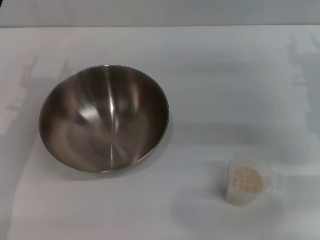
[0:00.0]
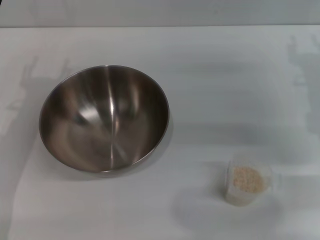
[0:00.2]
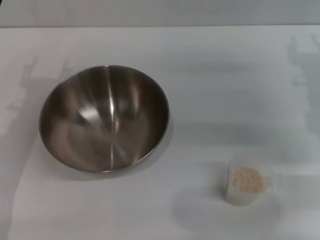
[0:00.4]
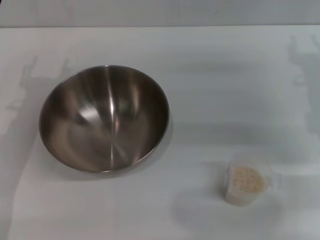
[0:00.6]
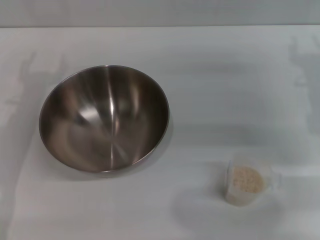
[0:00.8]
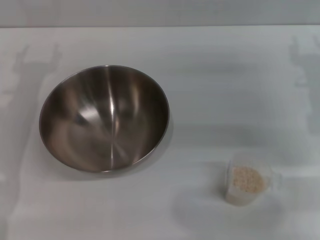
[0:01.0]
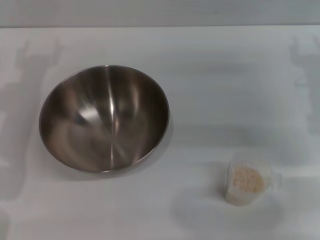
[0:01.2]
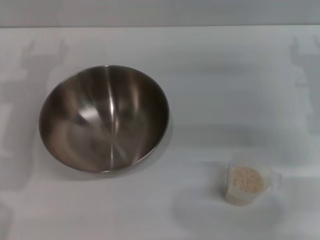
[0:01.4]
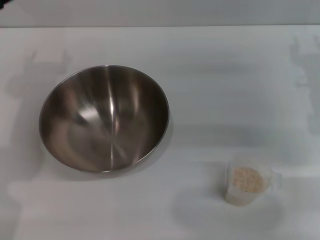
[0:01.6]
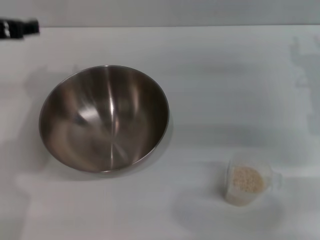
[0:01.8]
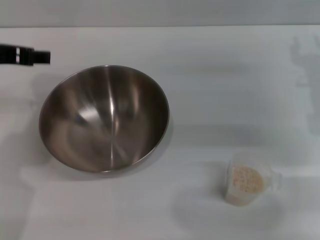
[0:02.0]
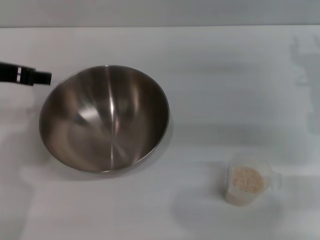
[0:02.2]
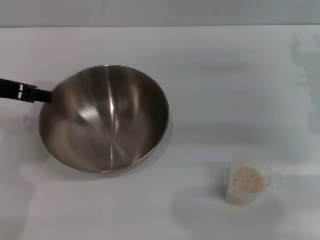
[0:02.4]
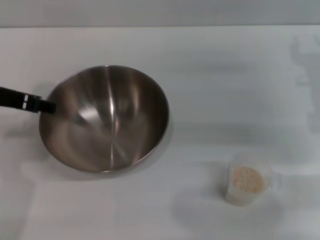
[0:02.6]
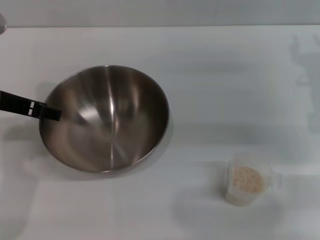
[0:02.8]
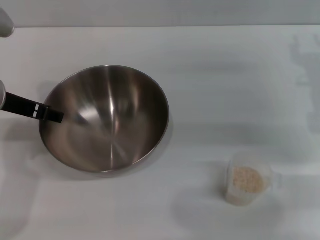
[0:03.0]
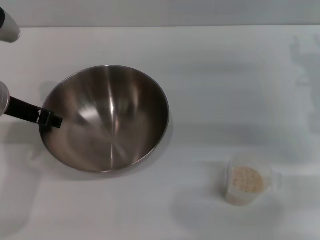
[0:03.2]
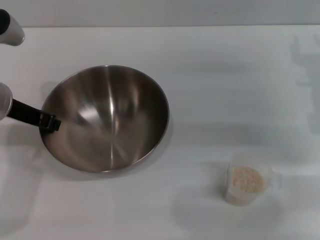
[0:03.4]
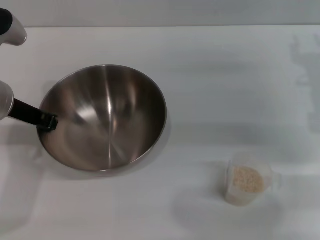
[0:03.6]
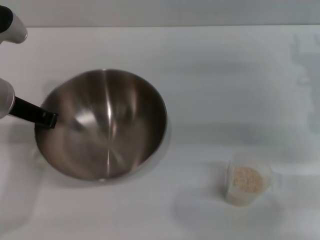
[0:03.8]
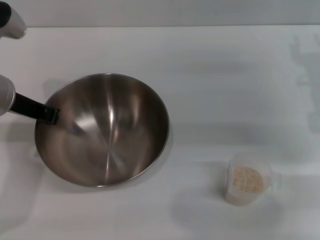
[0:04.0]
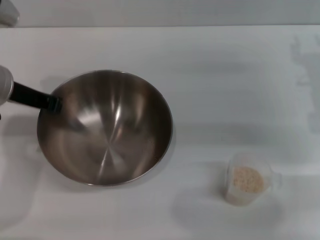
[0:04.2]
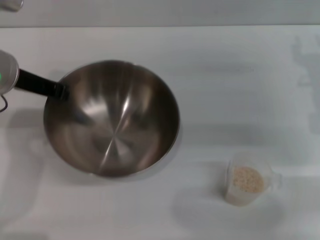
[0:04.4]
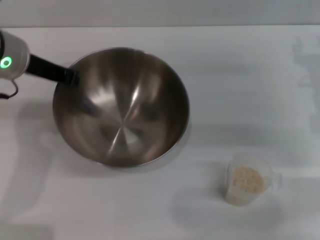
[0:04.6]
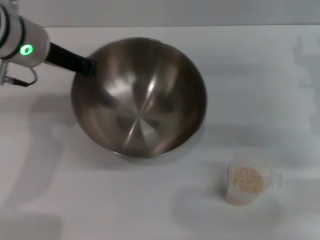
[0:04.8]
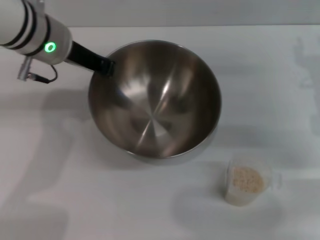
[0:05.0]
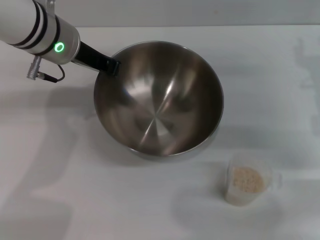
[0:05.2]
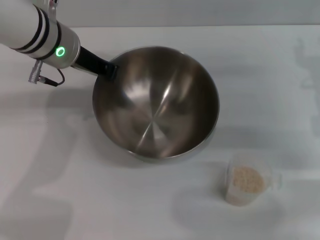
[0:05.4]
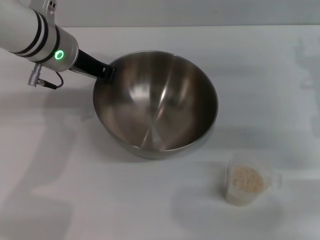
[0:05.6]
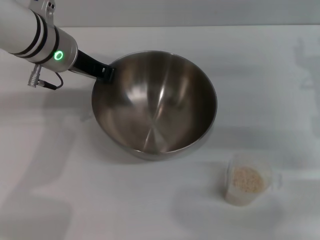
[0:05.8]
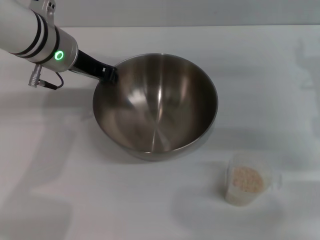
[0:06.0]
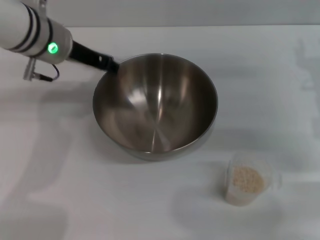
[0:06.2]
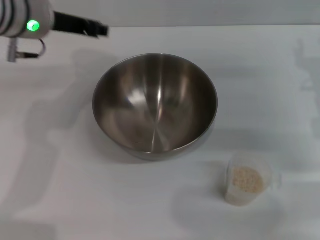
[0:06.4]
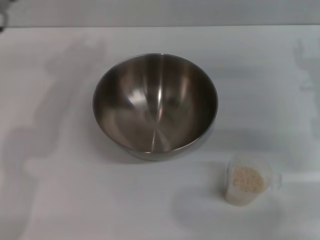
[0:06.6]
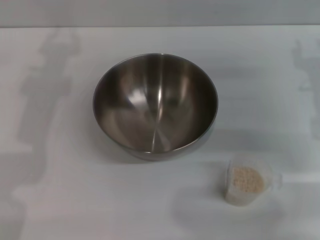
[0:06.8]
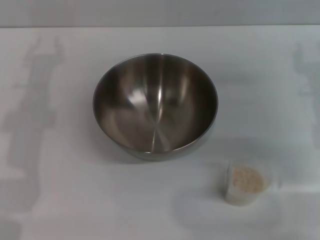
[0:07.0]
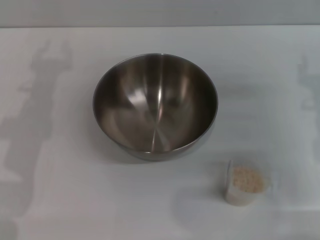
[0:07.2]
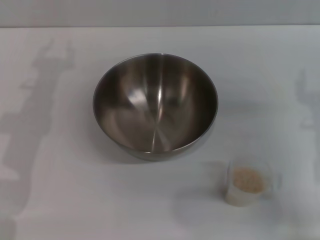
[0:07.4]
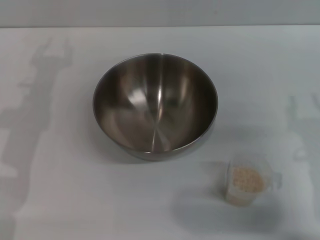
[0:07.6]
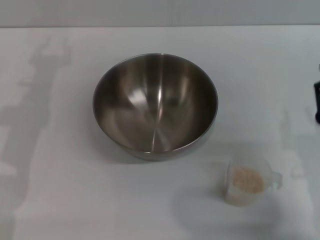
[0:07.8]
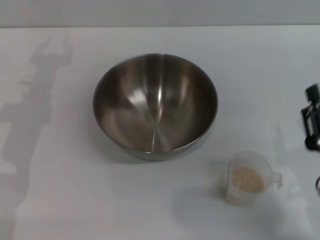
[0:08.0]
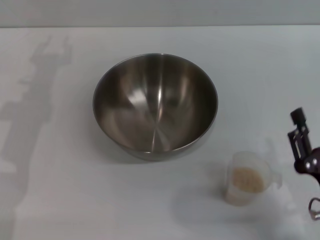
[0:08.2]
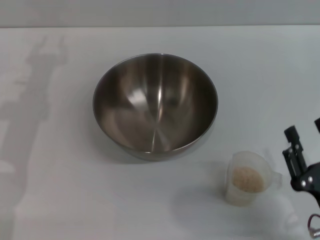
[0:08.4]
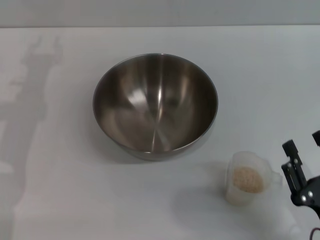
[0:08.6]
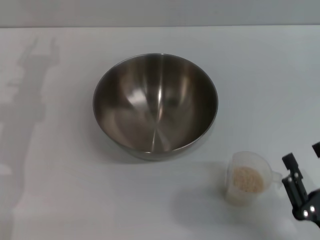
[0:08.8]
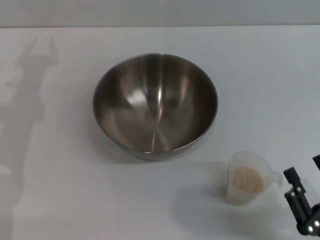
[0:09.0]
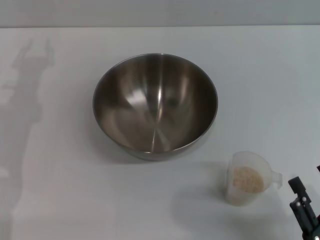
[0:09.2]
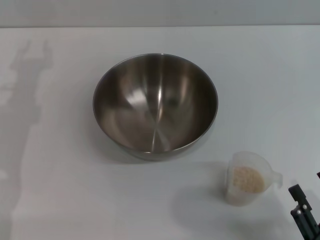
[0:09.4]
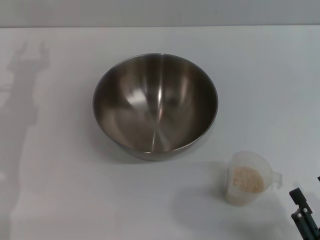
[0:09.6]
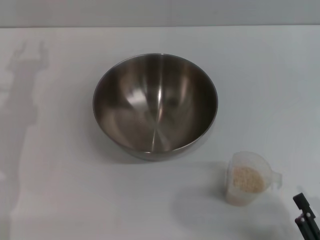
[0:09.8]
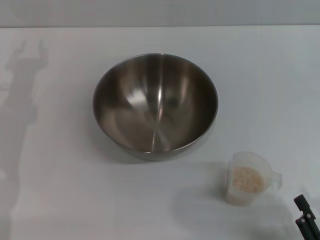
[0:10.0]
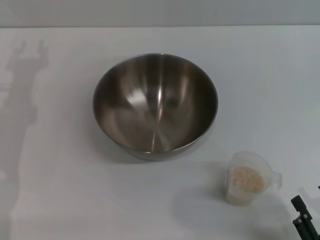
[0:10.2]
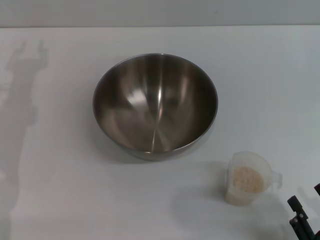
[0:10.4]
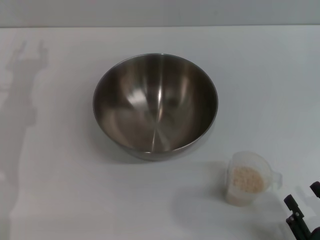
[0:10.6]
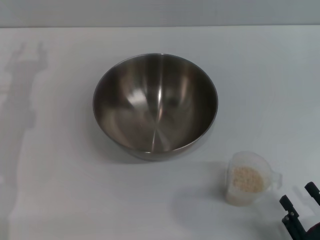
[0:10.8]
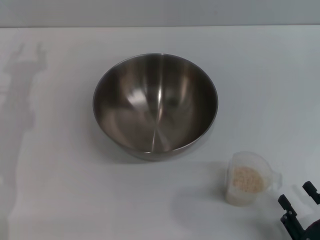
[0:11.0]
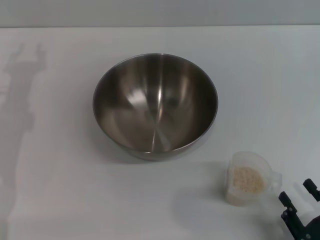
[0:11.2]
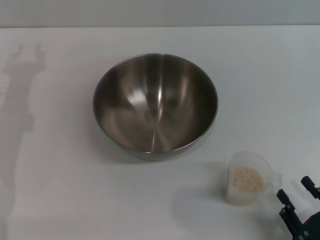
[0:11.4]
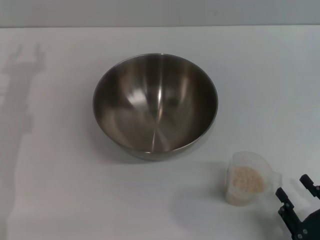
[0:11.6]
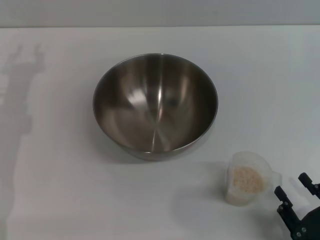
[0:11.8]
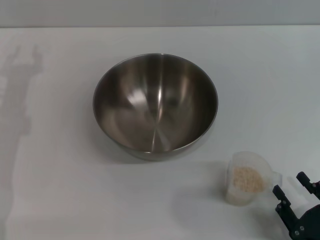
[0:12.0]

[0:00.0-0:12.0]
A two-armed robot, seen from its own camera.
Task of the whole recording: Place the bowl in the middle of the table with one hand and pour the rice from the grain cup into it with the other hand.
Step, 0:00.0 to 0:04.6: Pick up the bowl with the left gripper.
Step, 0:04.8 to 0:06.4: Place the bowl in the center of view with the left gripper.
0:01.6 to 0:03.0: The left gripper shifts by approximately 5 cm.
0:03.0 to 0:04.4: The left gripper closes.
0:04.4 to 0:06.0: The left gripper shifts approximately 10 cm to the right and forward.
0:06.0 to 0:07.6: The right gripper is displaced backward and downward by about 15 cm. The left gripper heads to the left and backward, covering approximately 10 cm, and opens up.
0:07.6 to 0:09.0: The right gripper moves backward, about 15 cm.
0:09.0 to 0:12.0: The grippers make only small movements.

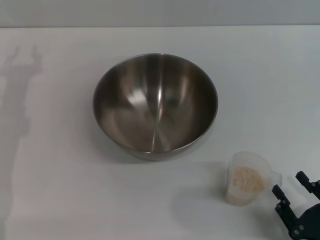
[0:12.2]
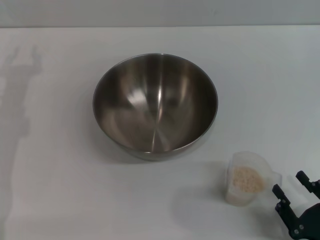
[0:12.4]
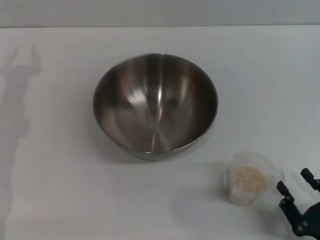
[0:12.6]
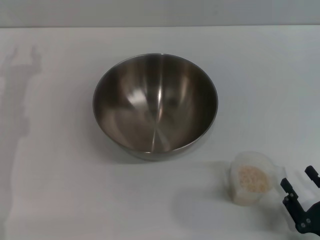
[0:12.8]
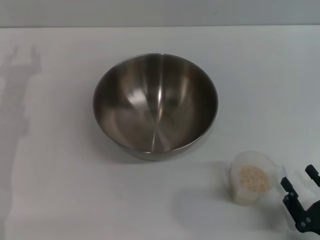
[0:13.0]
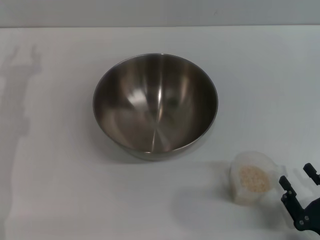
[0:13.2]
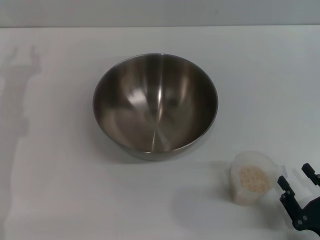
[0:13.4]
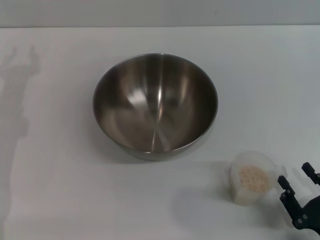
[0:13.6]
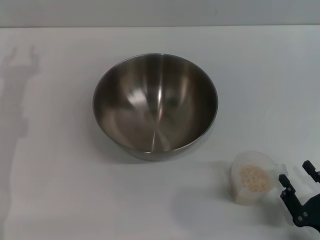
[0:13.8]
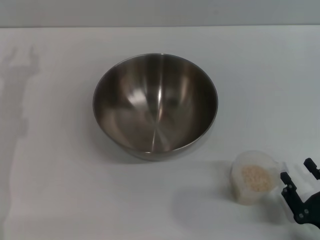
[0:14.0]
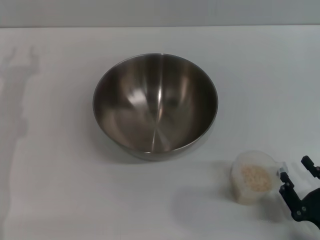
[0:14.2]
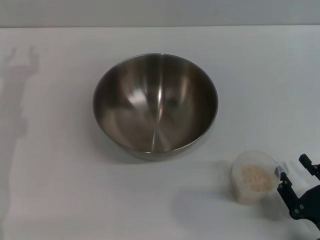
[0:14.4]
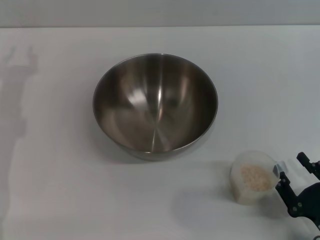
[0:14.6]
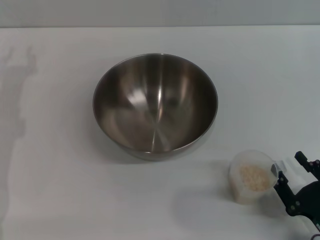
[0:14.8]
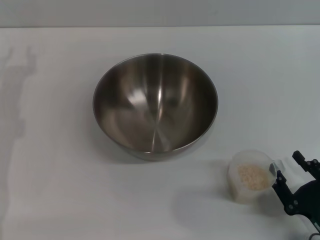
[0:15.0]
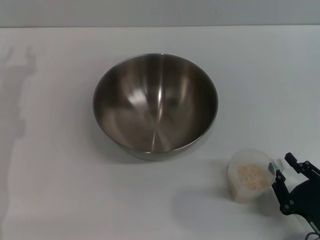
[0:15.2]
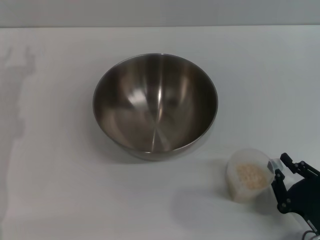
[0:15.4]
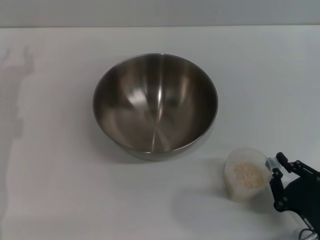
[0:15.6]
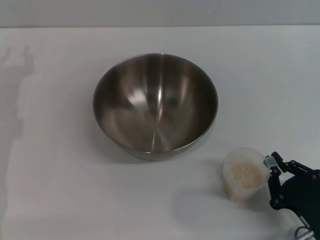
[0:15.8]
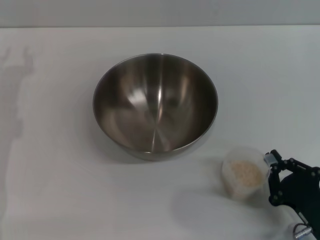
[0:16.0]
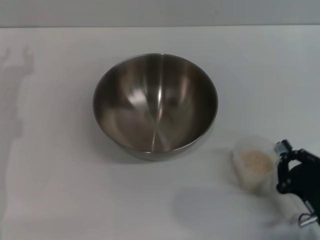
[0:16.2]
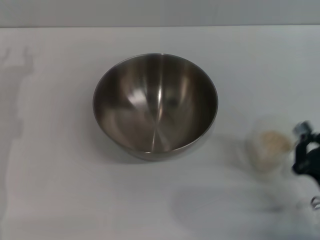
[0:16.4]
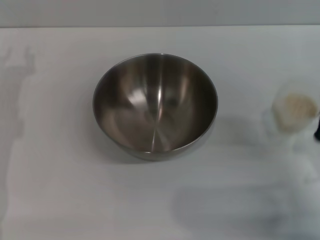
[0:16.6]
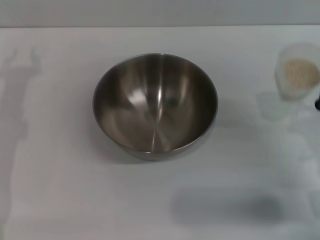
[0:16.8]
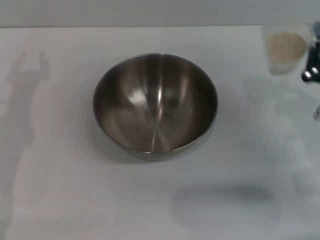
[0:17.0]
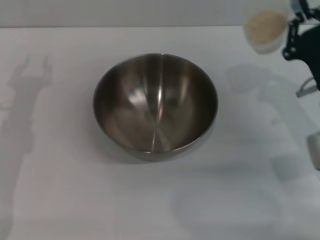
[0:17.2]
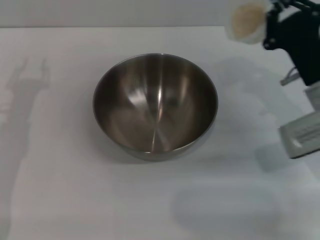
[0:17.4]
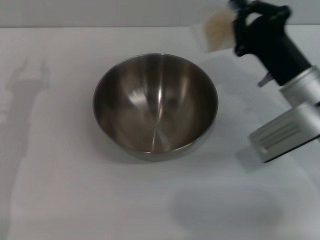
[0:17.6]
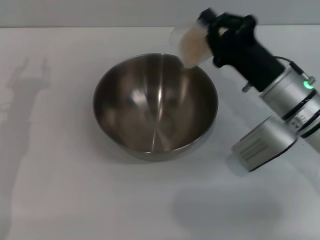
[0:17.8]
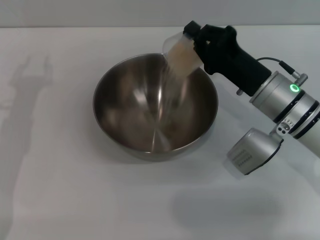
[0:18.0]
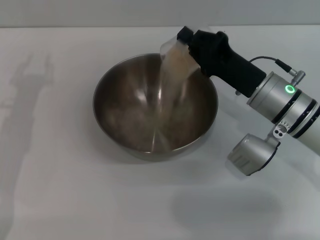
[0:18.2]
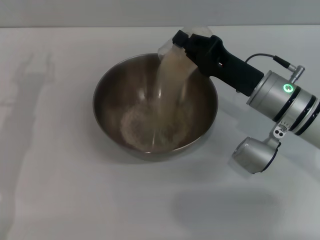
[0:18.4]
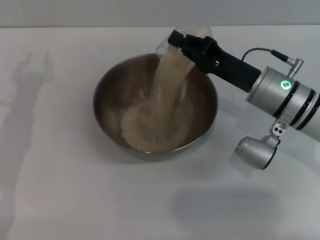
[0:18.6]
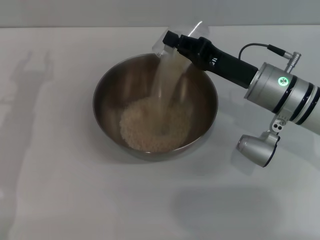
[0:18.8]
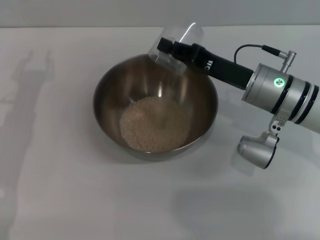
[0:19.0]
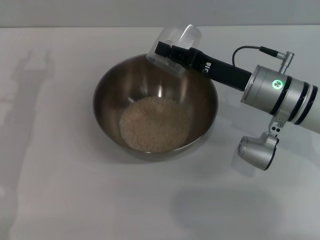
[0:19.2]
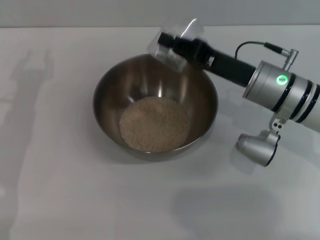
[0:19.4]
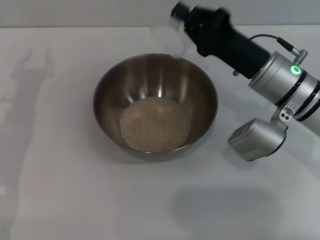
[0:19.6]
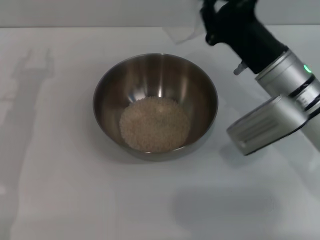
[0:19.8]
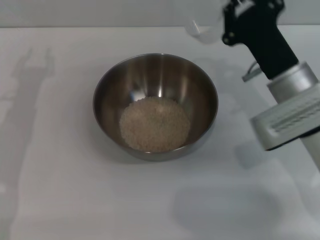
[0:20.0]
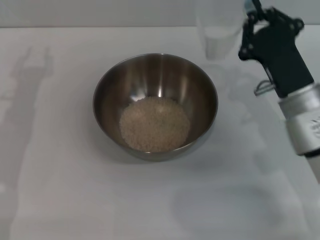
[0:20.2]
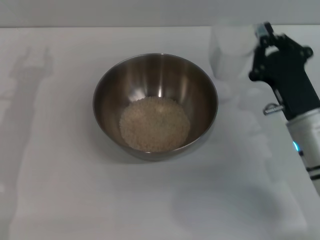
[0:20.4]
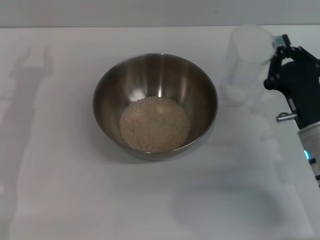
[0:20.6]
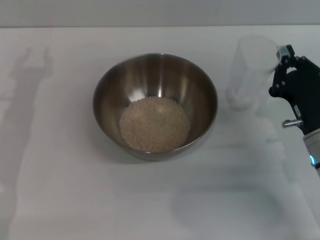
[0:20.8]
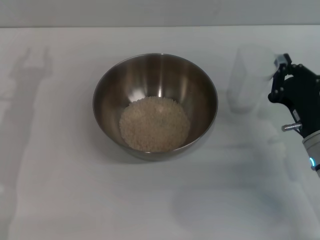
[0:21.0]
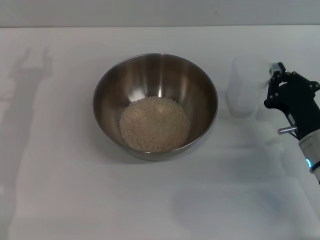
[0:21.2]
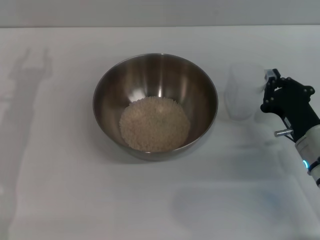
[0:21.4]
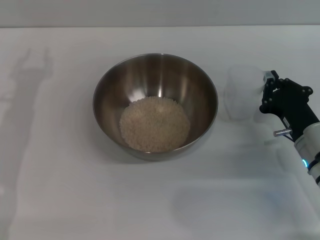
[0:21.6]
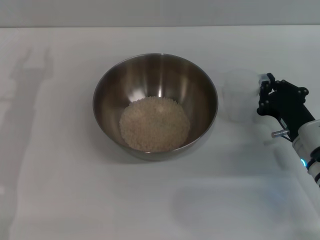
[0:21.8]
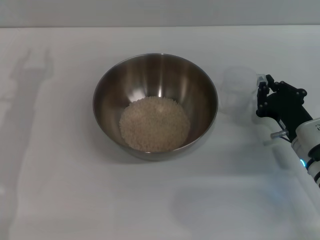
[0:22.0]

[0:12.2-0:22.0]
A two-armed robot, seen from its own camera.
Task of the whole recording: Place the bowl in the middle of the table with one hand and pour the rice from the grain cup into it with the other hand.
Step, 0:12.2 to 0:16.6: Pick up the cup with rice in it with the right gripper.
Step, 0:16.8 to 0:18.8: Pour the rice from the cup into the bowl with the right gripper.
0:12.2 to 0:13.6: Neither gripper changes place.
0:13.6 to 0:15.0: There are only small adjustments of the grippers.
0:15.0 to 0:16.4: The right gripper closes its fingers.
0:16.4 to 0:17.8: The right gripper travels forward, upward and to the left by approximately 20 cm.
0:19.2 to 0:20.6: The right gripper goes roughly 10 cm backward.
0:20.6 to 0:22.0: The right gripper ends up roughly 5 cm from where it was.
